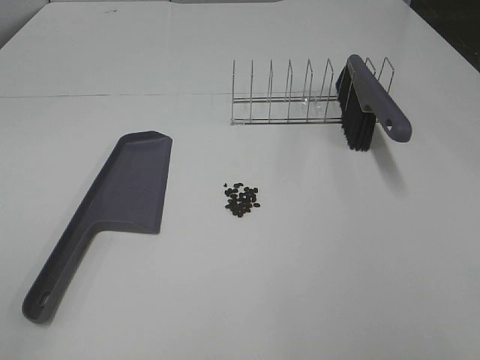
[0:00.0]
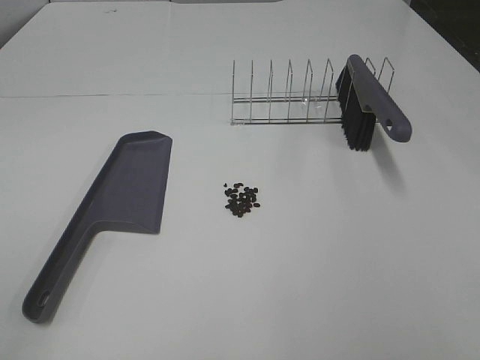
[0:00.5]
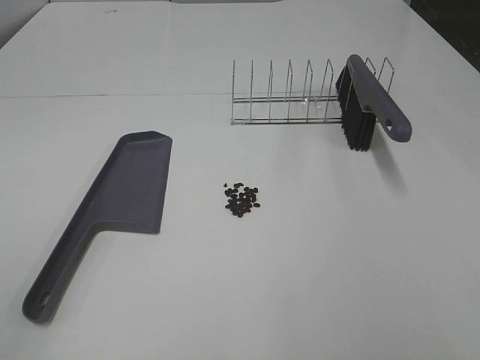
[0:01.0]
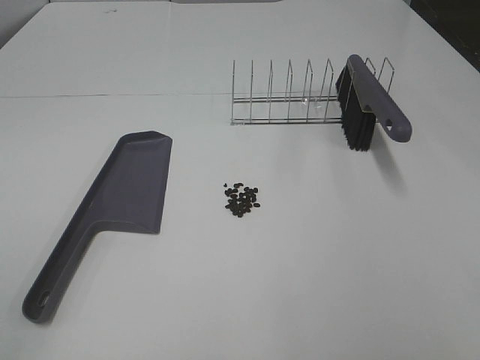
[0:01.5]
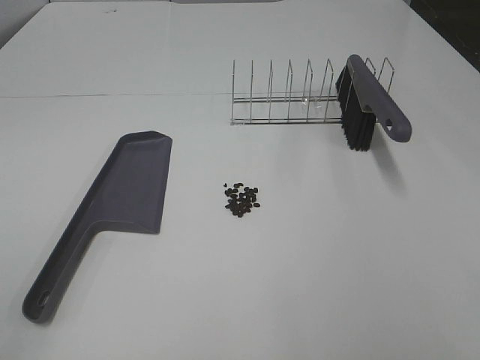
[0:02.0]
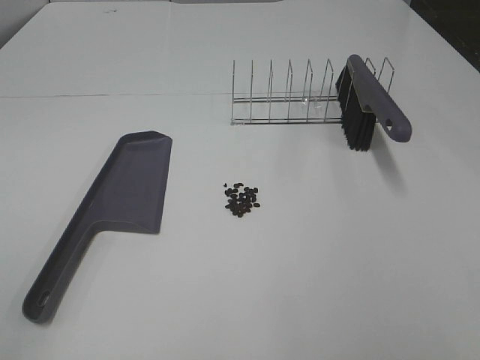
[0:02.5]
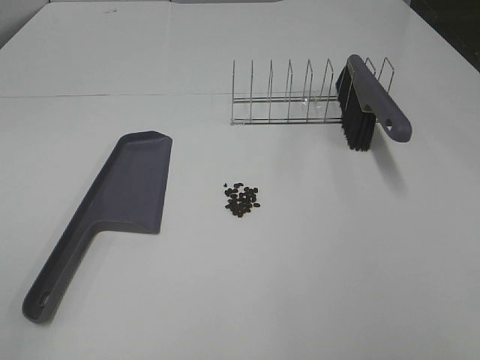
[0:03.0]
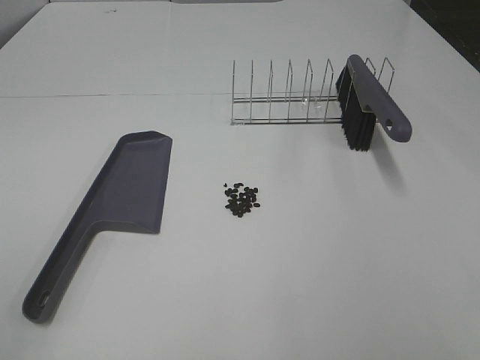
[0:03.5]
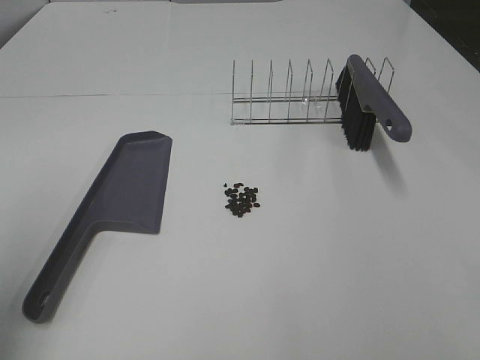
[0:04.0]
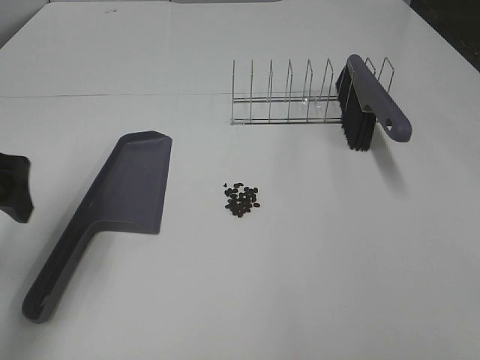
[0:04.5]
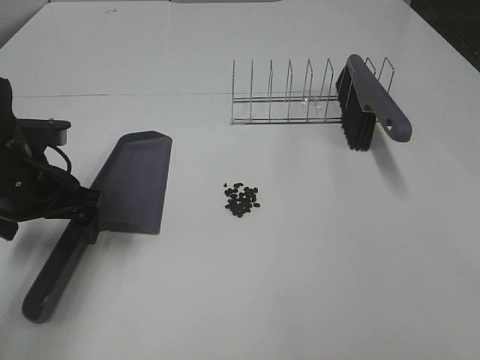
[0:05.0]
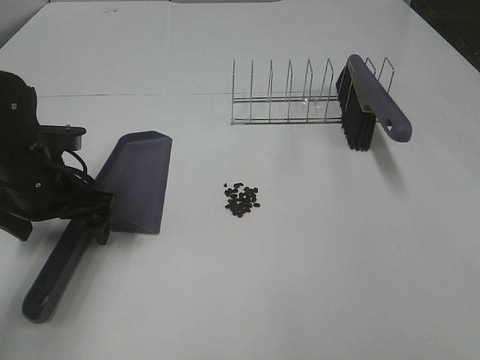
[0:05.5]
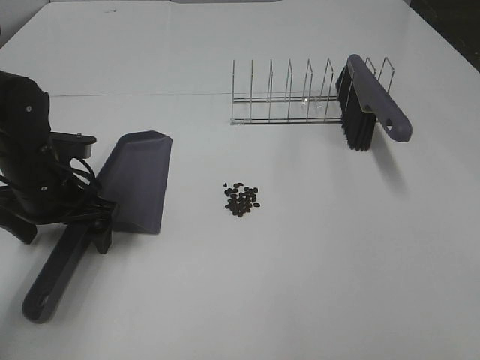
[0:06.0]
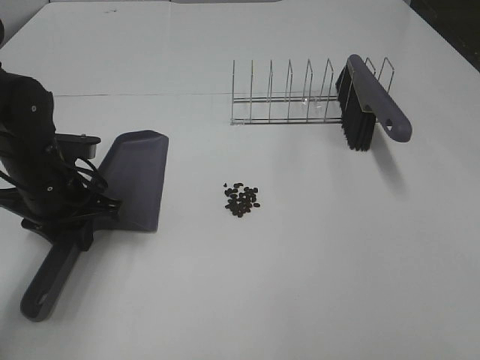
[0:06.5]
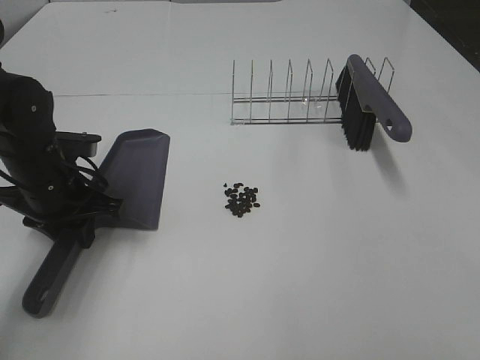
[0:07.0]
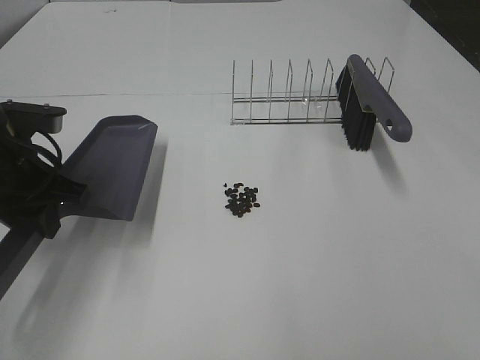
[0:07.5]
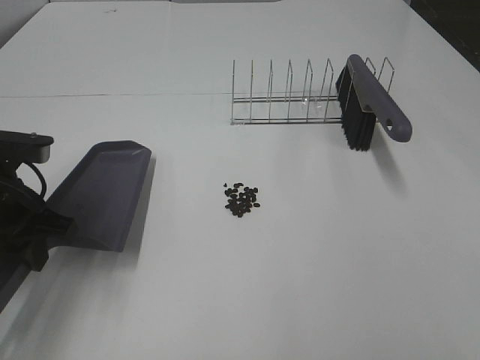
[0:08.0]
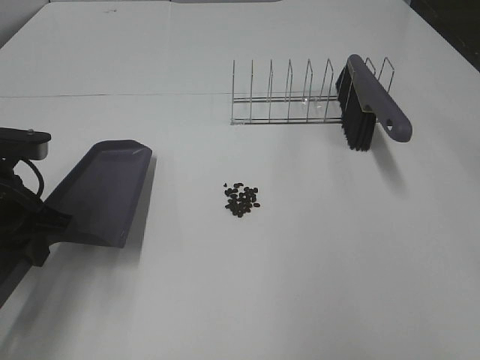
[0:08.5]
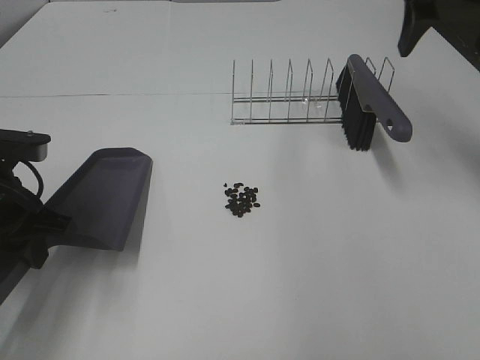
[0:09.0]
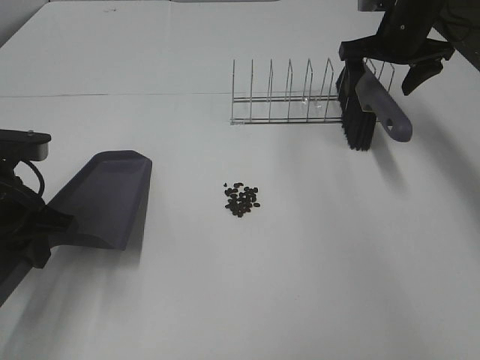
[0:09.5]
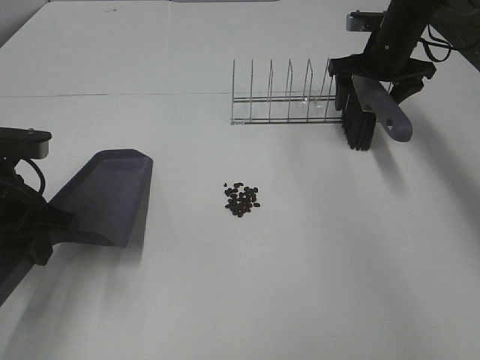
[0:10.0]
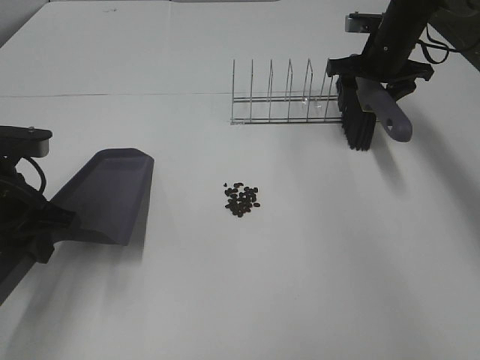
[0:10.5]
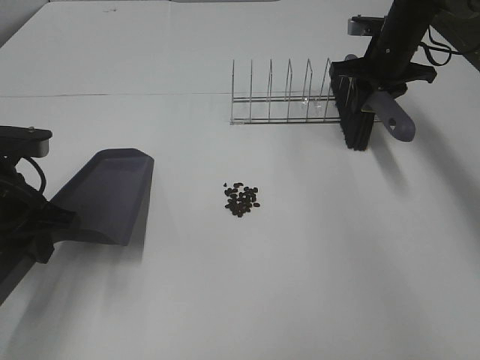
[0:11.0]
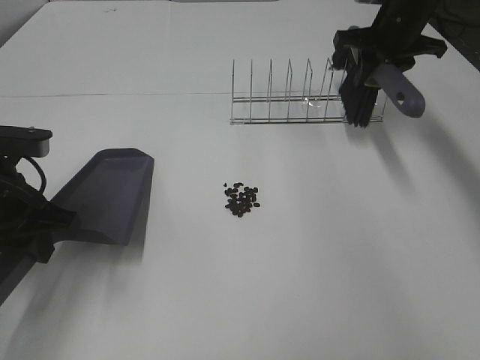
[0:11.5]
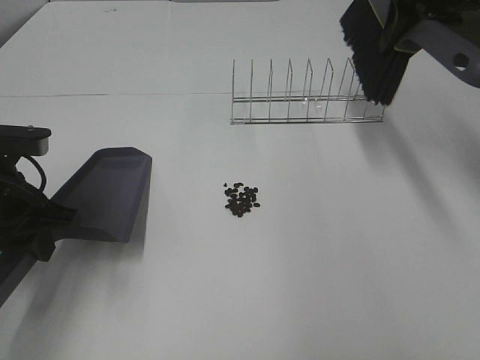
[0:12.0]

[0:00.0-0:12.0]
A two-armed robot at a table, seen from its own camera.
Task of the whole recording: Sweep Coffee Bean.
Step, 0:00.0 to 0:06.5: Left hand: grab the dustpan.
Step, 0:08.0 to 0:10.5: Right hand:grab the broom.
0:00.0 to 0:02.0: Both grippers stay put.
0:02.0 to 0:04.0: The left gripper heads forward, covering roughly 15 cm.
0:04.0 to 0:06.0: The left gripper travels downward, forward and to the right by some 30 cm.
0:06.0 to 0:08.0: The left gripper heads backward, covering some 5 cm, and closes its fingers.
0:08.0 to 0:10.0: The right gripper heads forward, covering roughly 50 cm.
0:10.0 to 0:12.0: The right gripper is displaced upward and backward by roughly 20 cm, and closes.

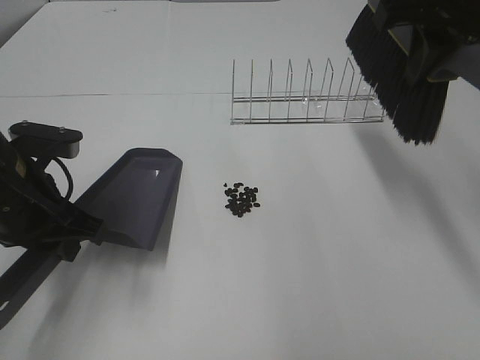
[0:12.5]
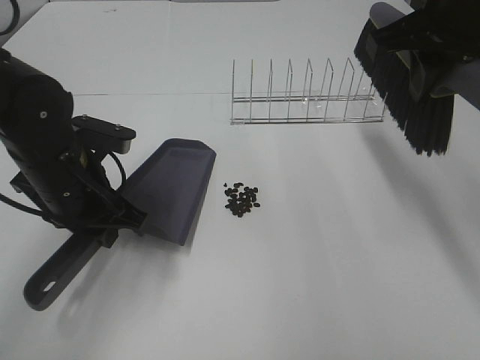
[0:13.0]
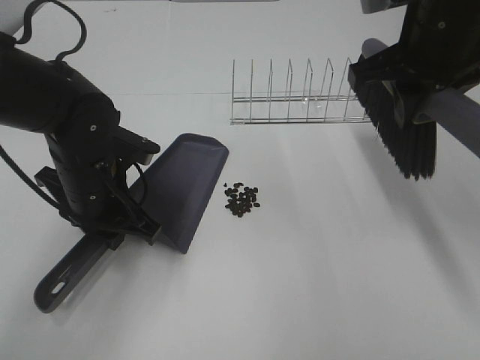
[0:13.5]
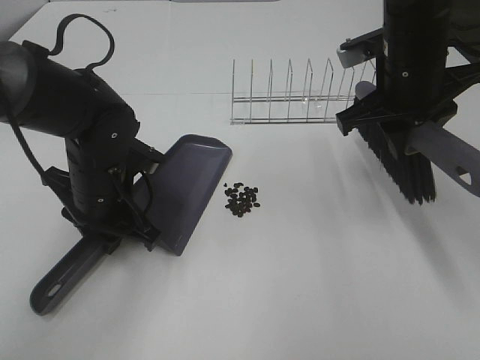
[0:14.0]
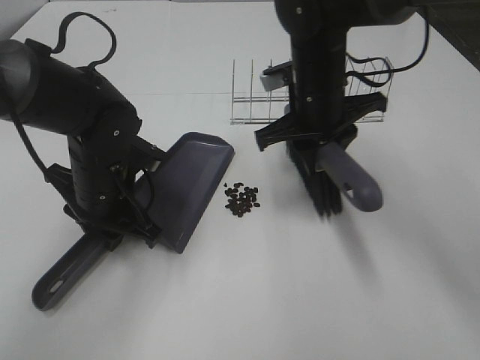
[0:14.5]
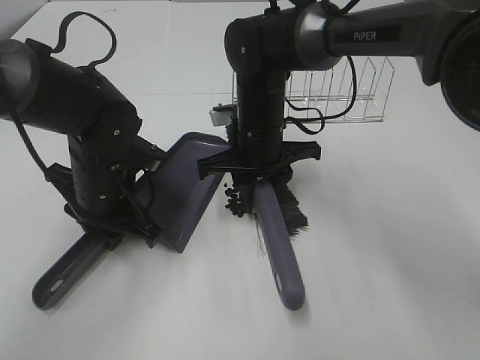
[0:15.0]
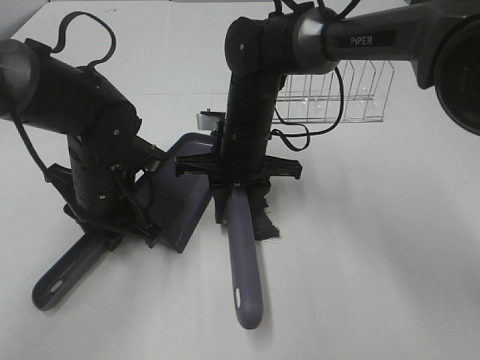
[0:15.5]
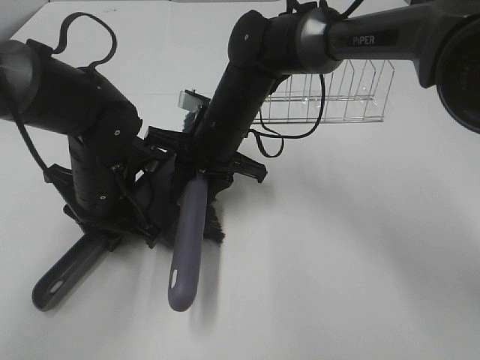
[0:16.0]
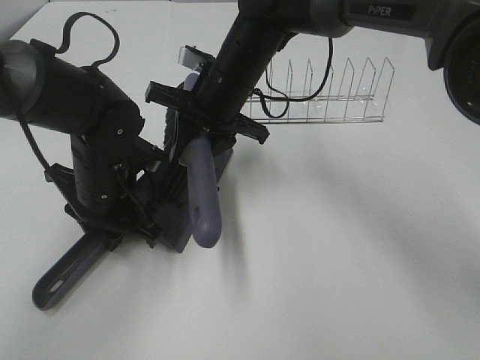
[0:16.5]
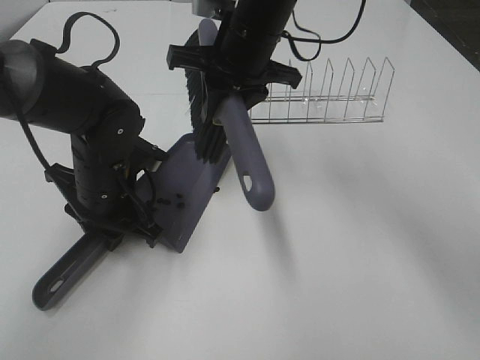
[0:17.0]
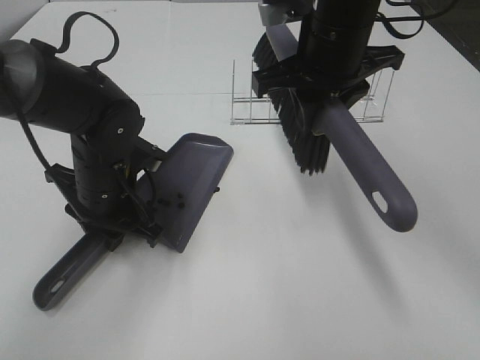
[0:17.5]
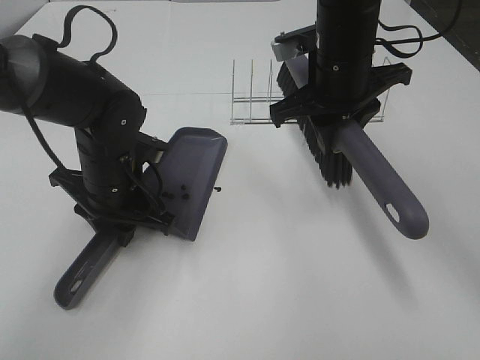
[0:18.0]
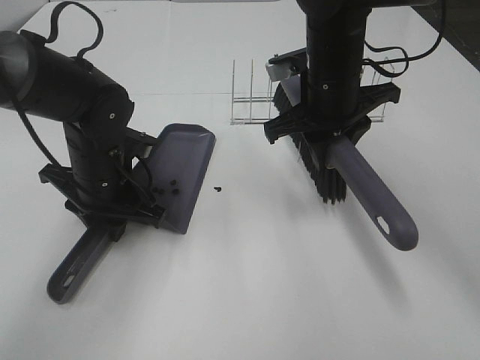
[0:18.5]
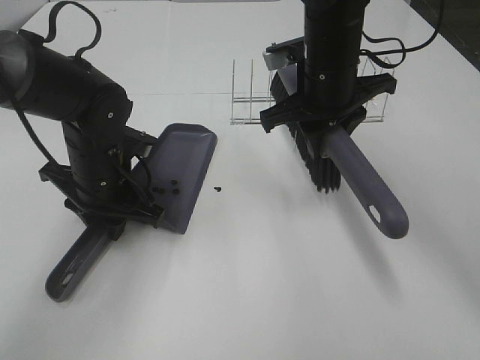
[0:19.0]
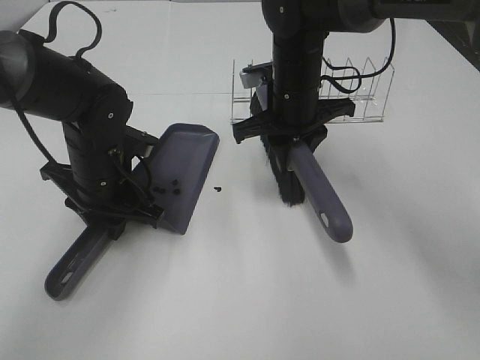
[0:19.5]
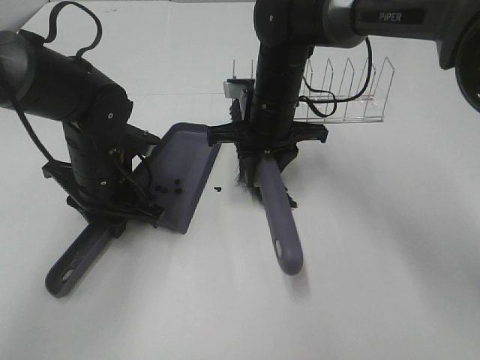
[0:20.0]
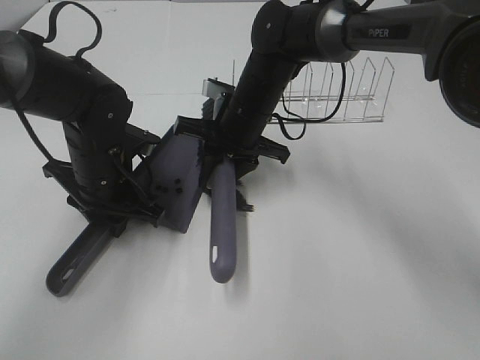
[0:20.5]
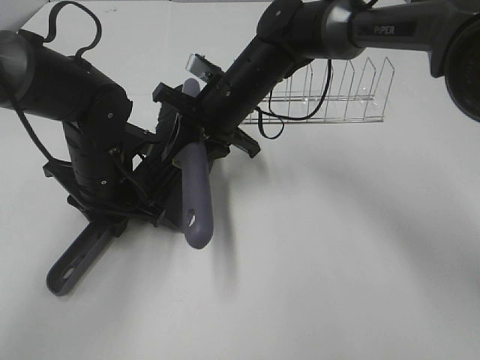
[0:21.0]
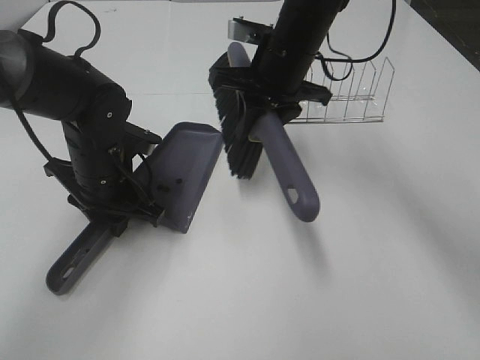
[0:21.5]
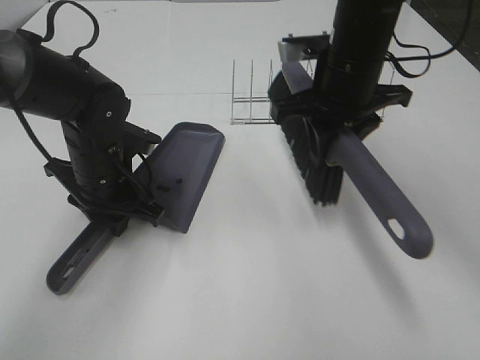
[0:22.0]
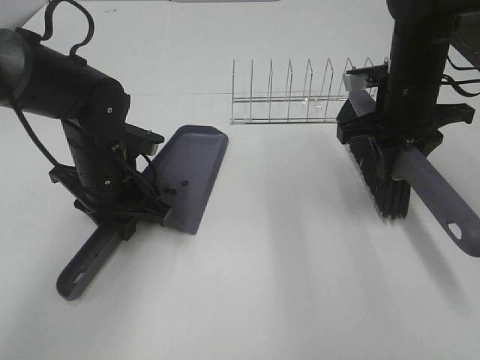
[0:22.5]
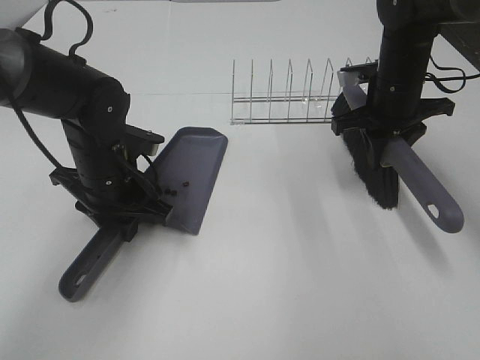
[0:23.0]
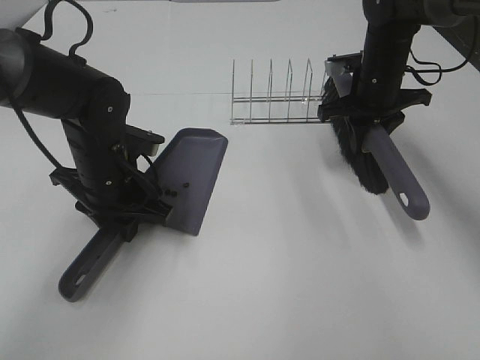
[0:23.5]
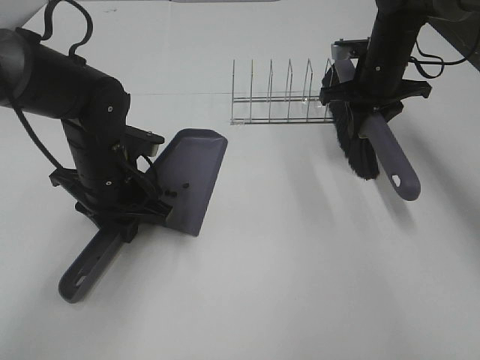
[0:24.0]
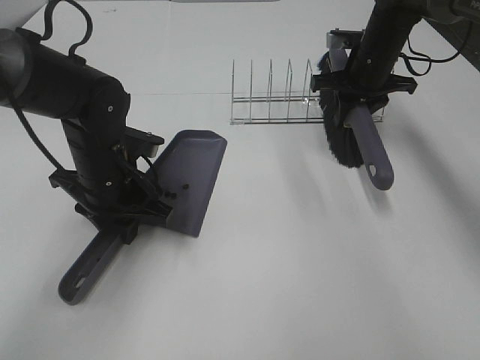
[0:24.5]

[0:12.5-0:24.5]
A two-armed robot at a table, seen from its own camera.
Task of the whole recording: Sweep Coffee Bean.
Step, 0:12.5 to 0:21.0: Right hand:sweep the coffee beans into the dustpan.
0:12.5 to 0:14.5: The left gripper goes roughly 10 cm to the right, forward and downward, while the right gripper shifts about 20 cm downward and to the left.
0:14.5 to 0:16.5: The right gripper goes about 10 cm to the left.
0:16.5 to 0:18.5: The right gripper goes approximately 10 cm to the right.
0:18.5 to 0:20.5: The right gripper heads to the left and downward, covering roughly 10 cm.
0:20.5 to 0:22.5: The right gripper shifts roughly 20 cm to the right.
0:22.5 to 0:24.5: The right gripper travels forward by about 10 cm.

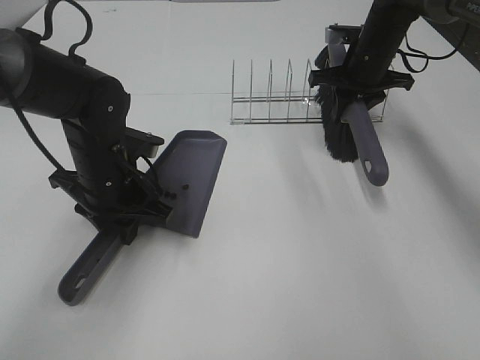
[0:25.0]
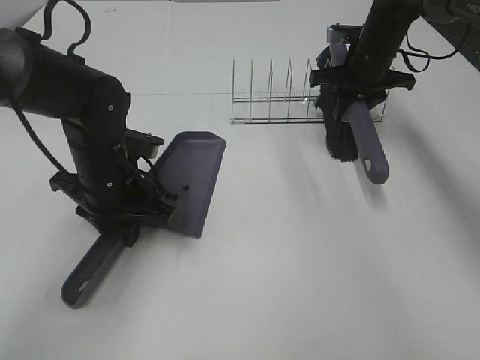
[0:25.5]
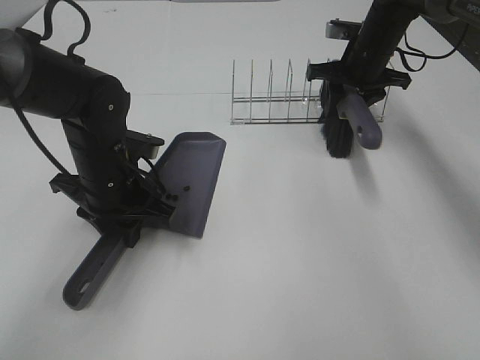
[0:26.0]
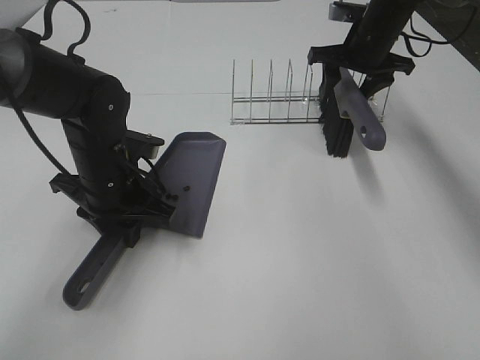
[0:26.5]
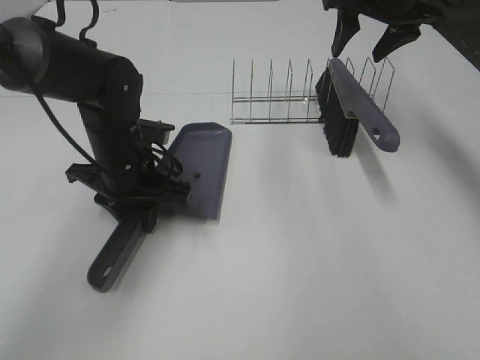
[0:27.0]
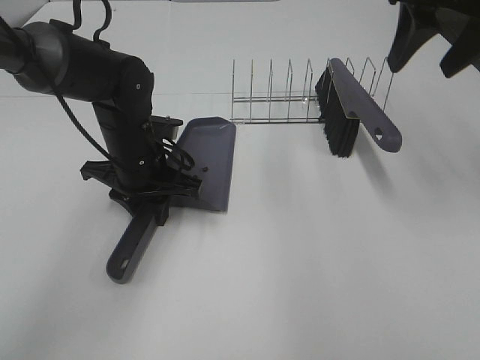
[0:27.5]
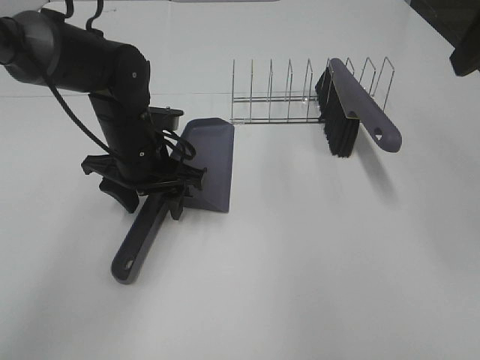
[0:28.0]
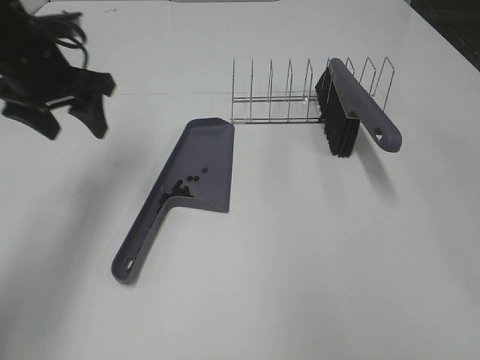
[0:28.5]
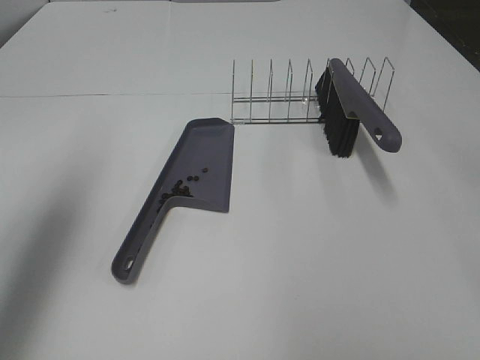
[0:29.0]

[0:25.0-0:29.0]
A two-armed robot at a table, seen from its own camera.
Task of the whole recording: Sweep Coffee Bean.
0:25.0 to 0:27.0: The right gripper heads upward, covering about 10 cm, and opens its fingers.
0:27.0 to 0:29.0: The right gripper moves backward, about 35 cm. The left gripper heads upward, to the left and backward, covering about 25 cm, and opens.
